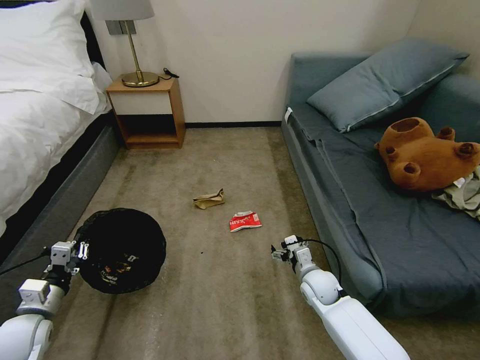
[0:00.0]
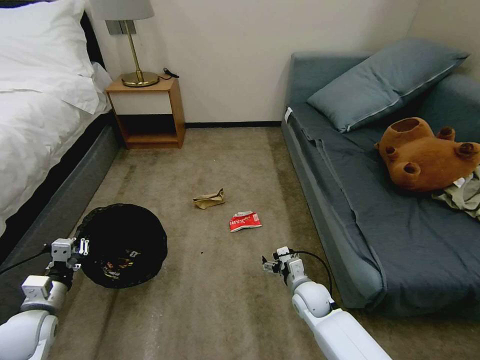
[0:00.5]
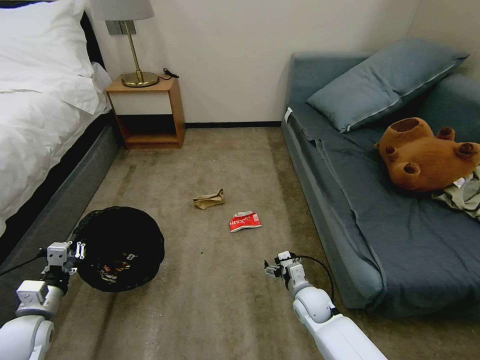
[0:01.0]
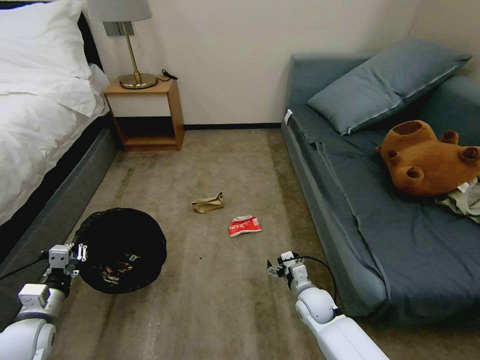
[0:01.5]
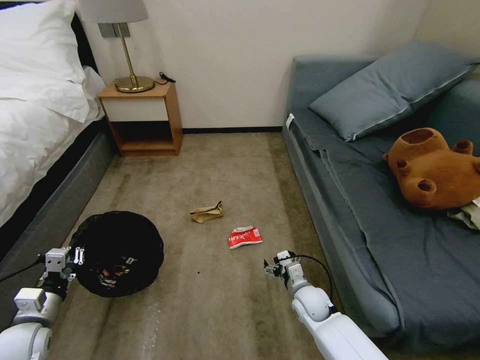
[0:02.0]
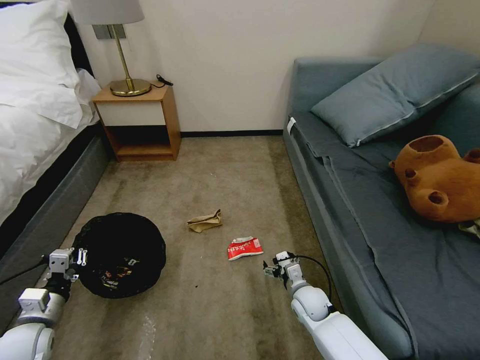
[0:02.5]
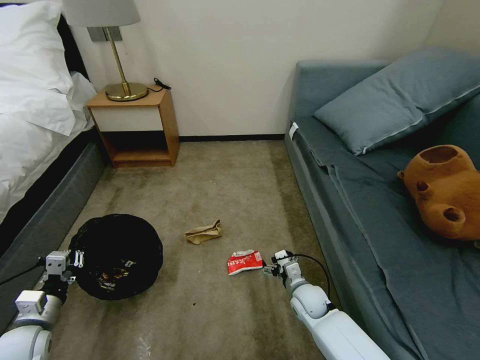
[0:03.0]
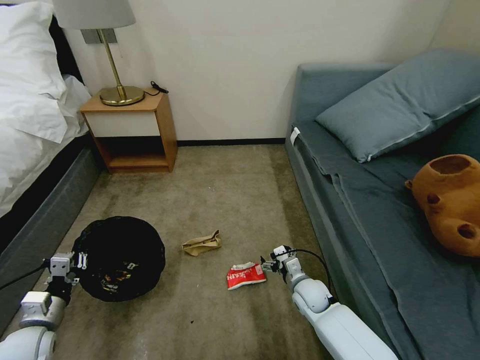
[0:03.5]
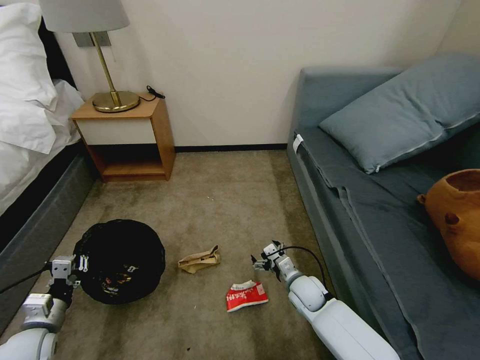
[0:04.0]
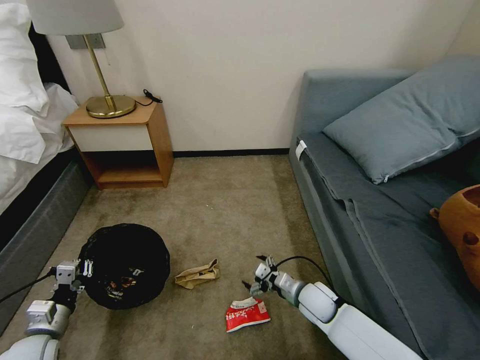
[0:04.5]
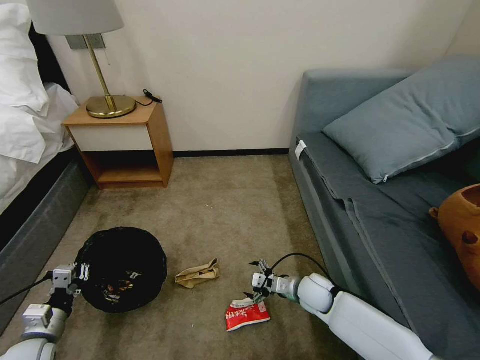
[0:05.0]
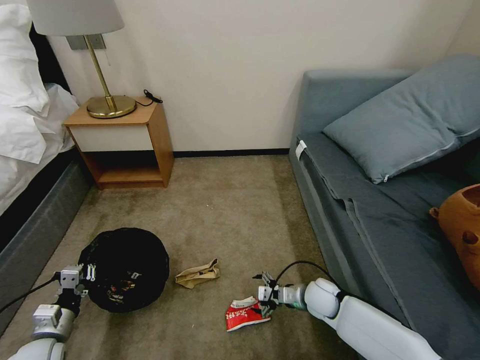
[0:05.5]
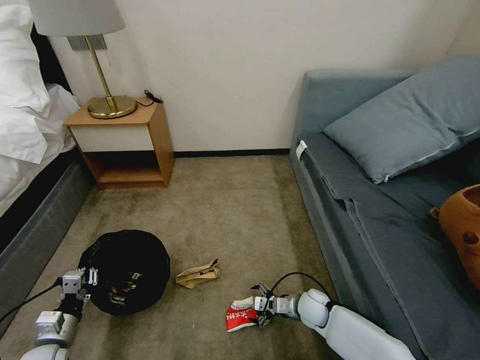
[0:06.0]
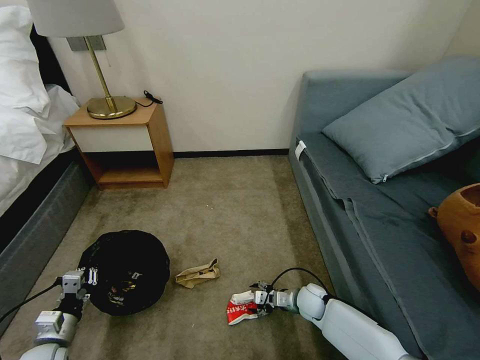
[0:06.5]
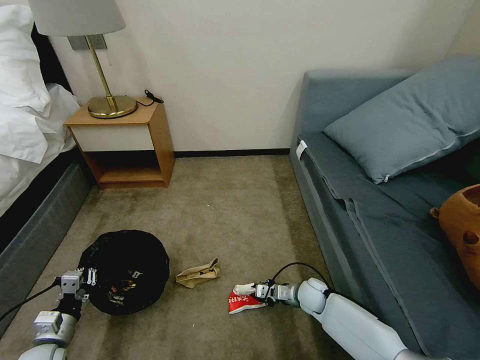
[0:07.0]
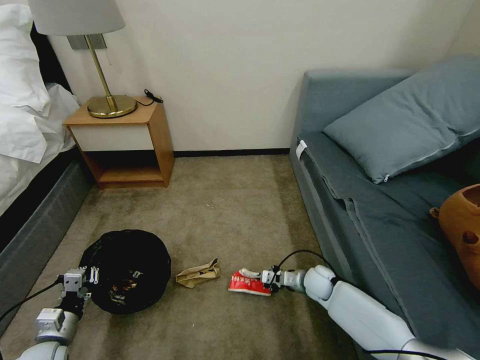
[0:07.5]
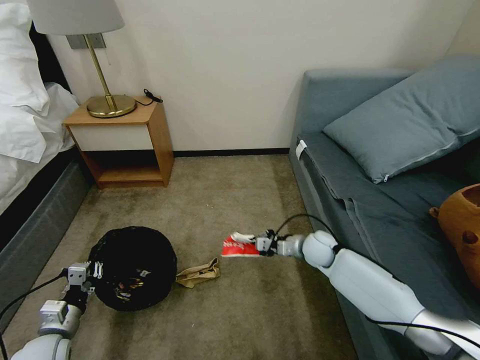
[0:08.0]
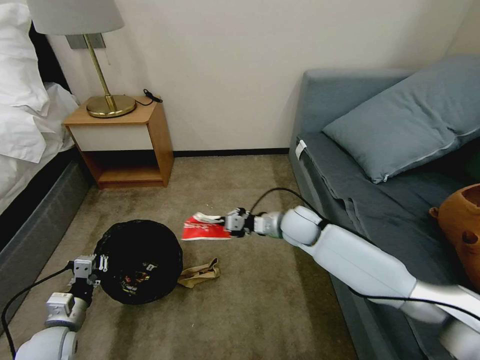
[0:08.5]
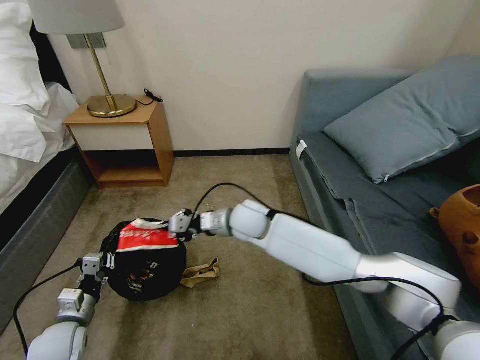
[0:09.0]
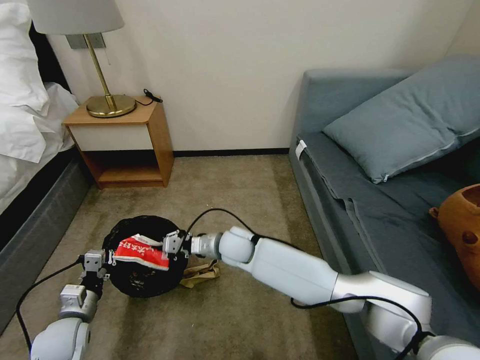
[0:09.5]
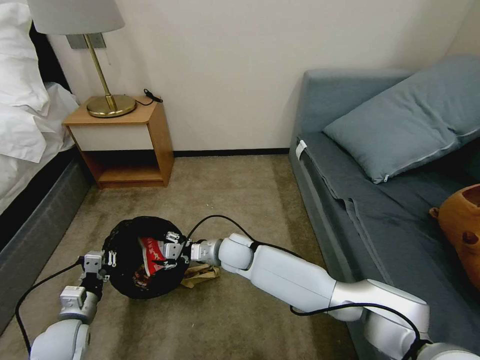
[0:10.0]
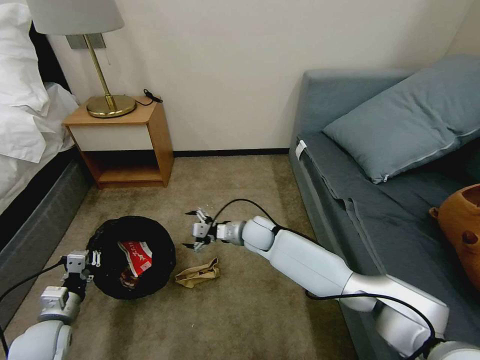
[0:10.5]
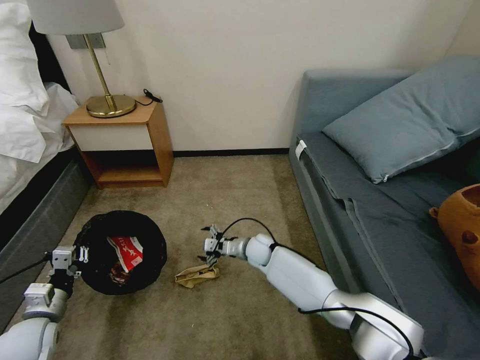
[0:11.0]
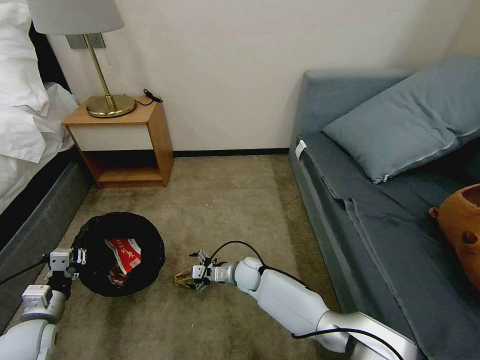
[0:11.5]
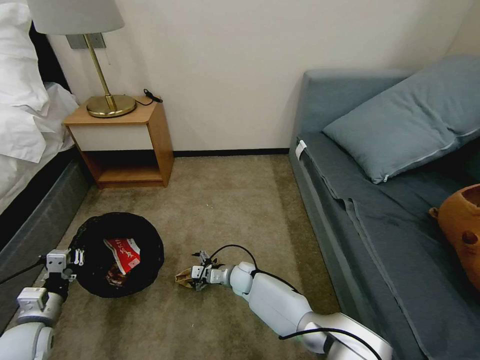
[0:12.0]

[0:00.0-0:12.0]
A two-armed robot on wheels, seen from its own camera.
Task of the whole recording: Pick up the trash bin, then pick up the garbage on the floor and place it into the trash bin.
0:00.0 to 0:02.0: The right gripper shifts by roughly 5 cm.
0:04.0 to 0:06.0: The right gripper heads downward, covering some 5 cm.
0:06.0 to 0:08.0: The right gripper is displaced upward and forward by roughly 15 cm, and closes up.
0:08.0 to 0:10.0: The right gripper heads to the left, covering roughly 25 cm, and opens.
0:10.0 to 0:12.0: The right gripper is displaced downward by some 15 cm. The left gripper travels to the left by some 5 cm.

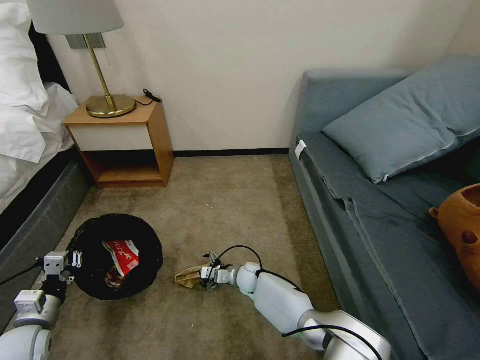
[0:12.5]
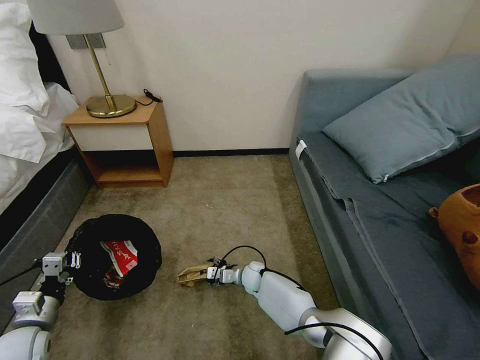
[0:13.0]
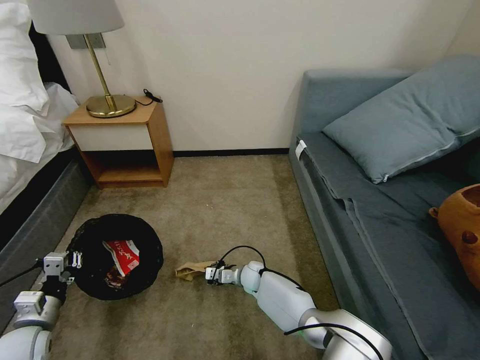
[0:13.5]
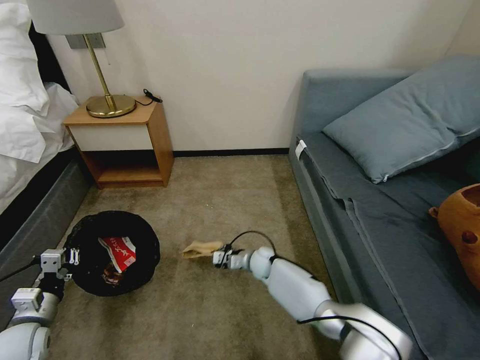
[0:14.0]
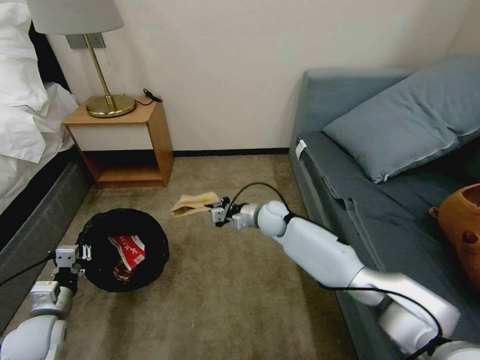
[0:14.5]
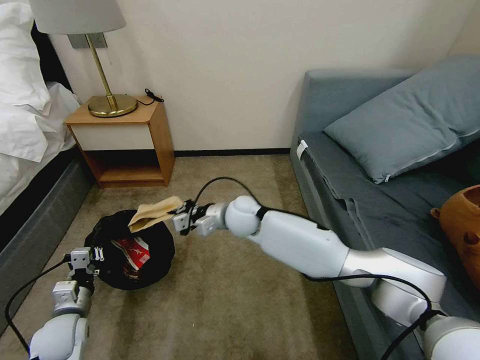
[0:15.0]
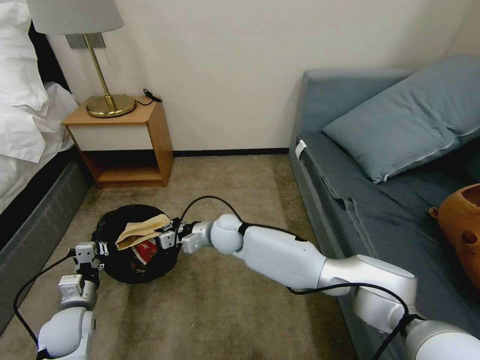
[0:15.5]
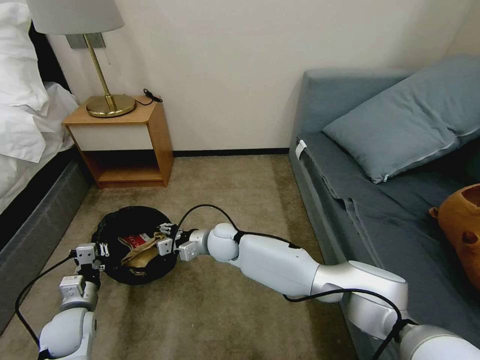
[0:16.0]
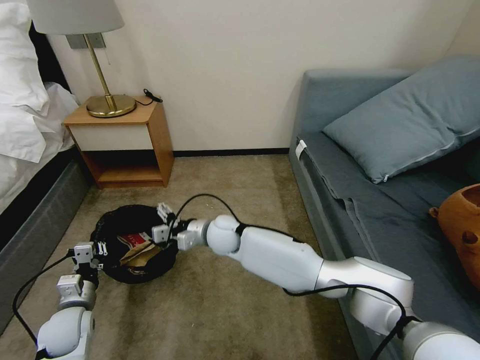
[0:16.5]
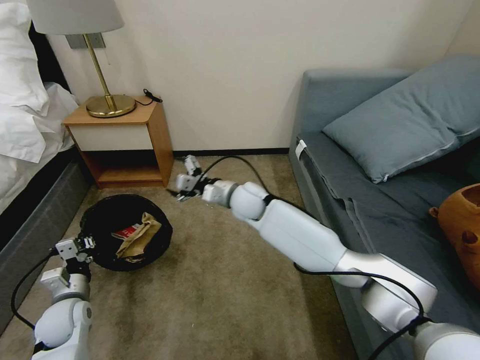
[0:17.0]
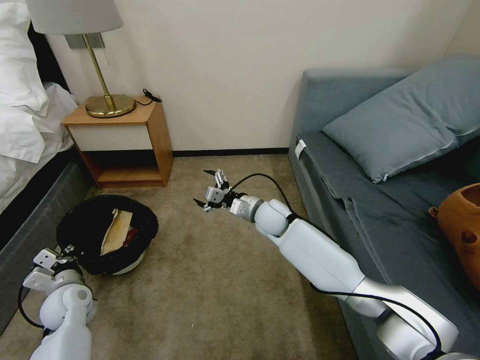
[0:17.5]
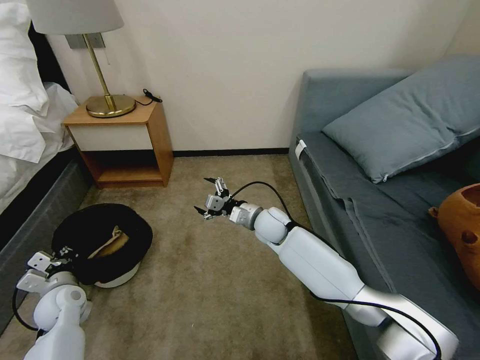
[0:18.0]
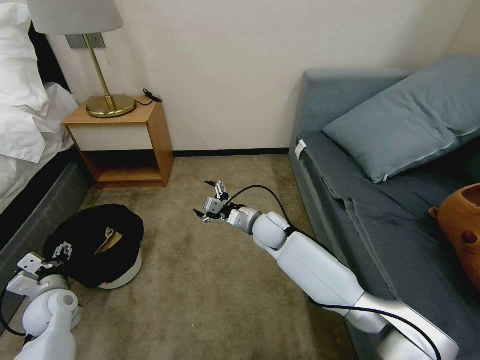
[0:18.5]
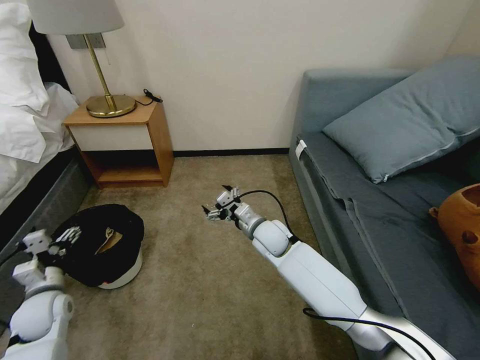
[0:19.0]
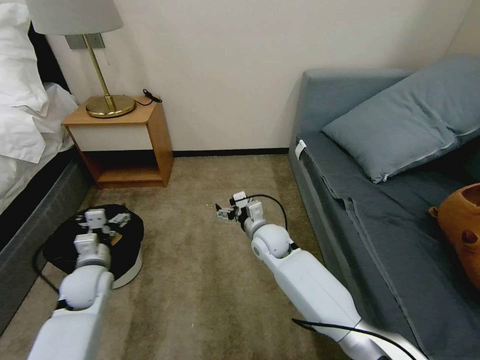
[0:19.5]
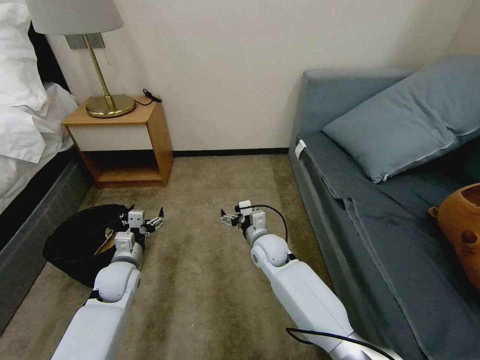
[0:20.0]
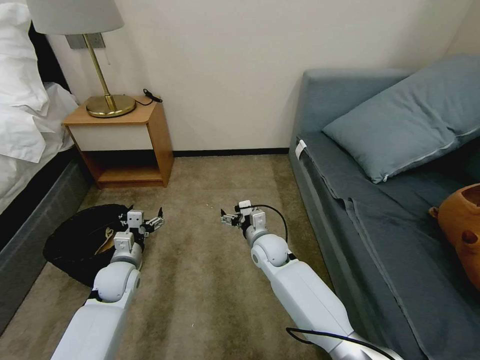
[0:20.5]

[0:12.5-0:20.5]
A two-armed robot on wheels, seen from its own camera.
Task of the whole recording: Pick up the trash bin, then pick up the garbage on the floor and place it into the trash bin.
0:12.5 to 0:14.5: The right gripper heads upward and forward, covering approximately 20 cm, and closes up.
0:14.5 to 0:16.5: The right gripper heads to the left and backward, covering some 15 cm, and opens up, while the left gripper shifts by some 5 cm.
0:16.5 to 0:18.5: The left gripper shifts approximately 5 cm to the left, and opens its fingers; the right gripper shifts roughly 10 cm to the right.
0:18.5 to 0:20.5: The left gripper is displaced to the right and forward by roughly 15 cm, while the right gripper shifts by about 5 cm.

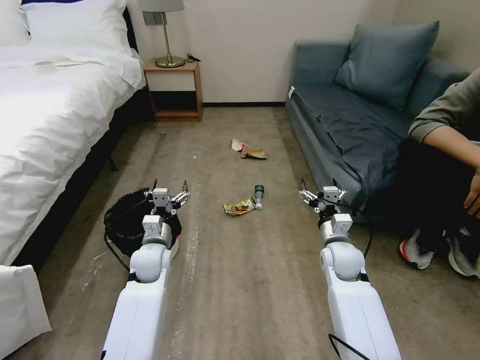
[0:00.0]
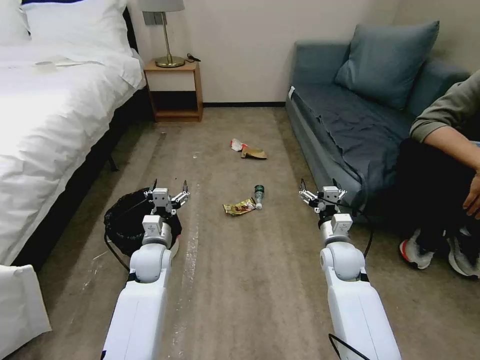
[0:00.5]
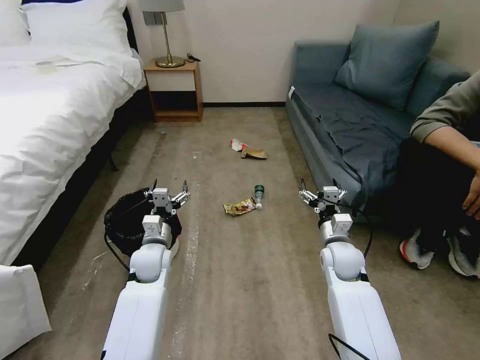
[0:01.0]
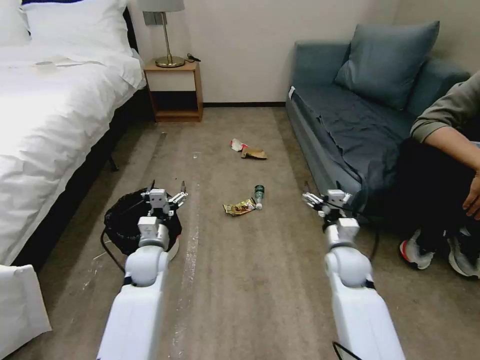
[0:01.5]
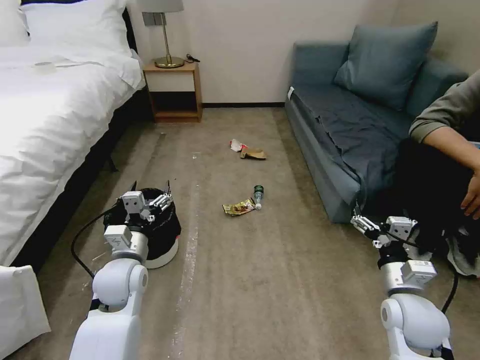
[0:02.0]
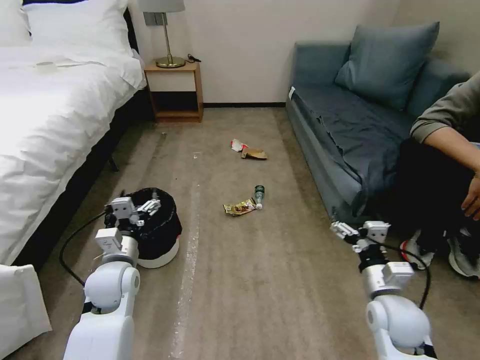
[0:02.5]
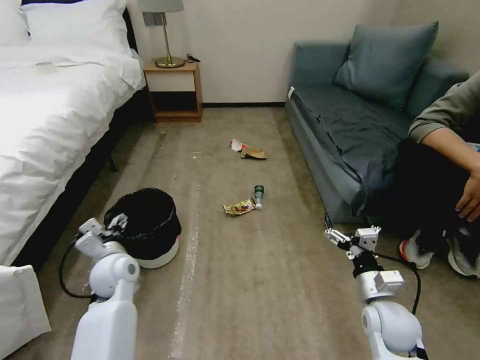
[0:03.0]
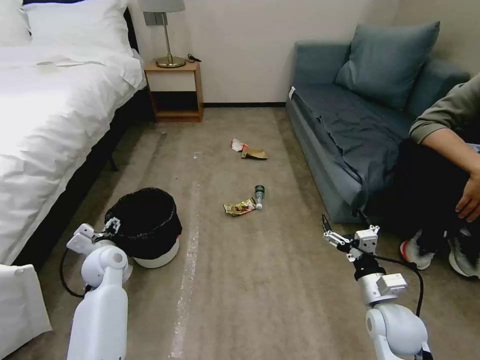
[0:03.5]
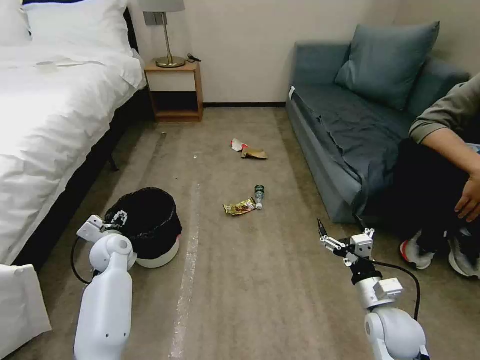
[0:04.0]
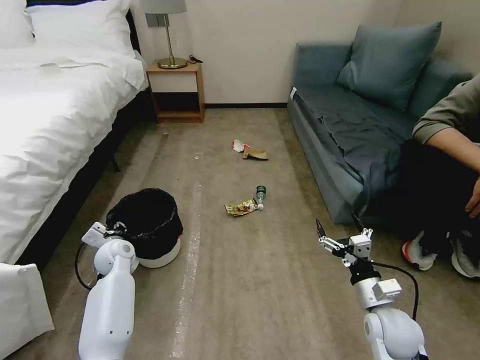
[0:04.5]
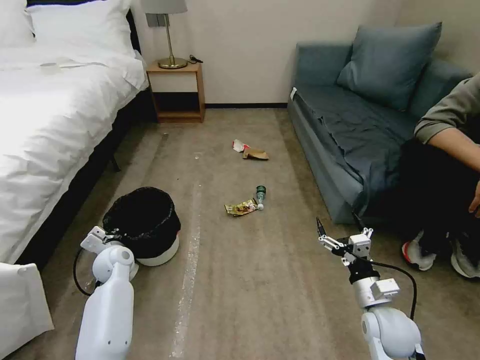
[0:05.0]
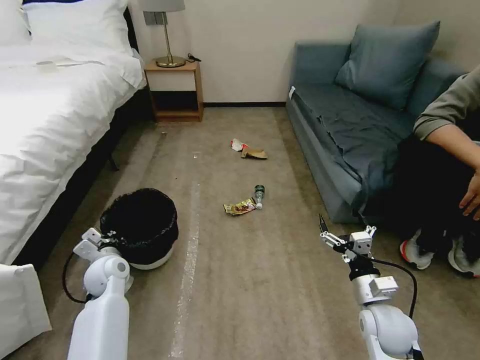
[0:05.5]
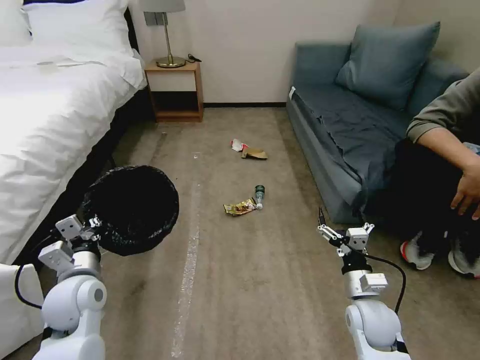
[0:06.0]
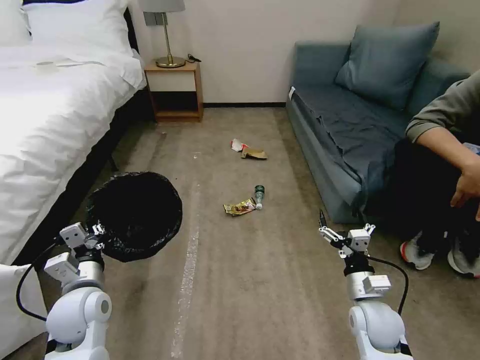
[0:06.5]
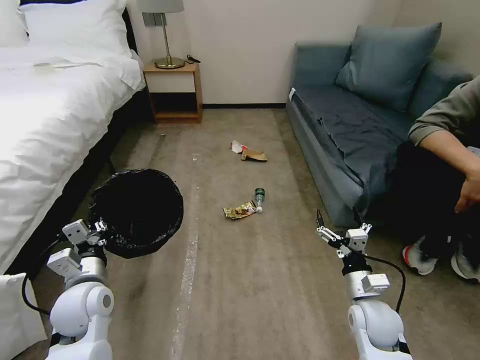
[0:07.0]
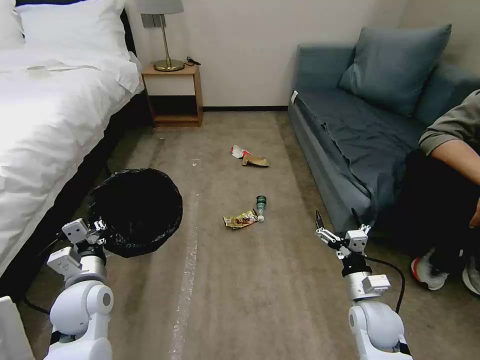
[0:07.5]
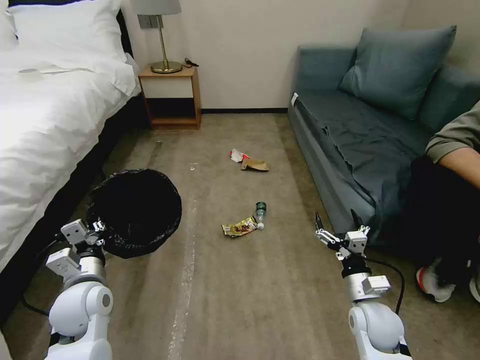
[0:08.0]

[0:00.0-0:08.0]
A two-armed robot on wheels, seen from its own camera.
Task of the whole recording: Pick up the trash bin, then pick up the garbage on the floor and place it into the trash bin.
0:02.0 to 0:04.0: The left gripper moves forward, to the left and downward, about 15 cm, while the right gripper travels downward by approximately 5 cm.
0:04.0 to 0:06.0: The left gripper is displaced backward and upward by about 15 cm, and closes.
